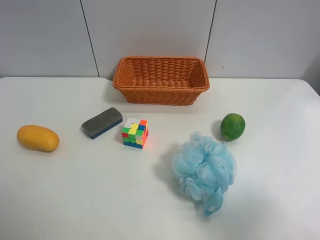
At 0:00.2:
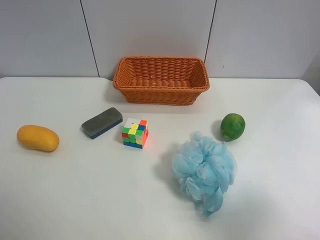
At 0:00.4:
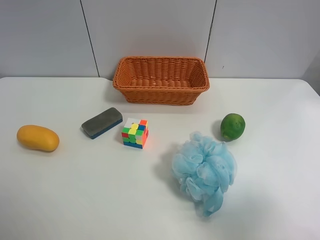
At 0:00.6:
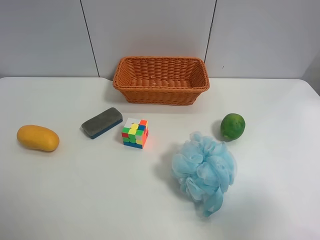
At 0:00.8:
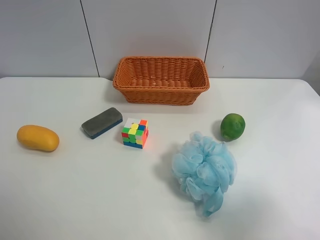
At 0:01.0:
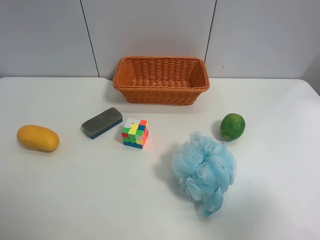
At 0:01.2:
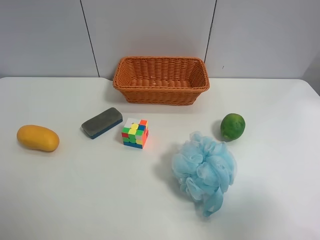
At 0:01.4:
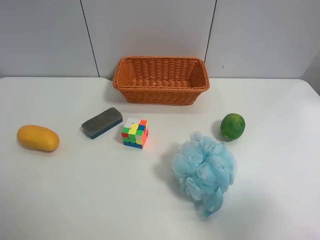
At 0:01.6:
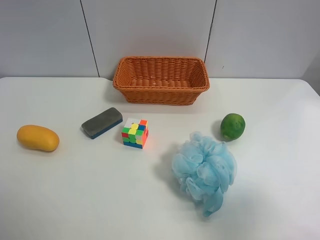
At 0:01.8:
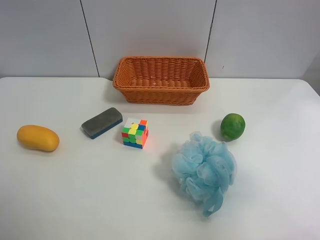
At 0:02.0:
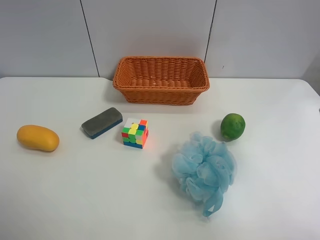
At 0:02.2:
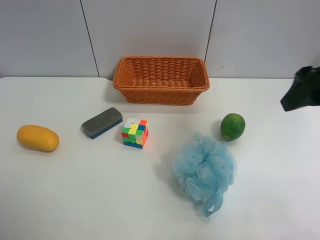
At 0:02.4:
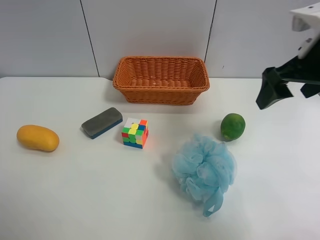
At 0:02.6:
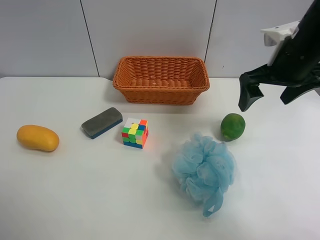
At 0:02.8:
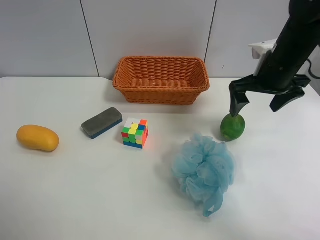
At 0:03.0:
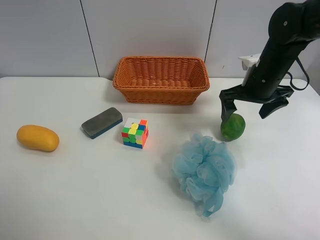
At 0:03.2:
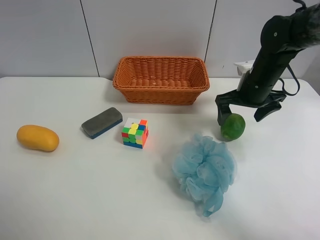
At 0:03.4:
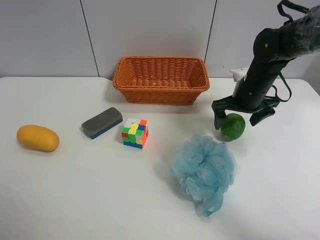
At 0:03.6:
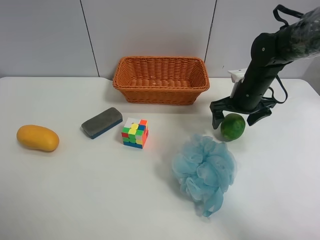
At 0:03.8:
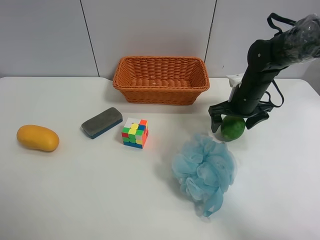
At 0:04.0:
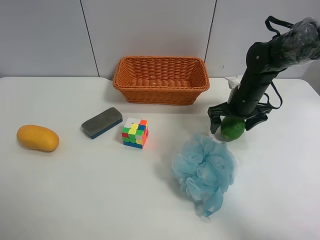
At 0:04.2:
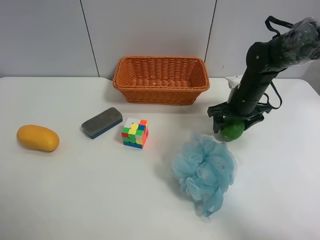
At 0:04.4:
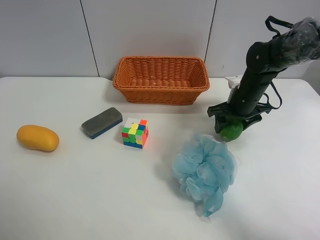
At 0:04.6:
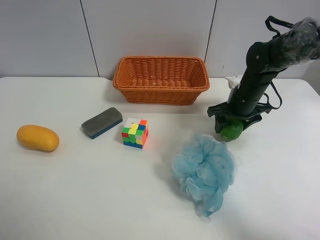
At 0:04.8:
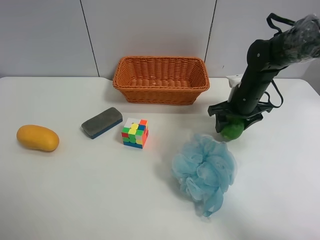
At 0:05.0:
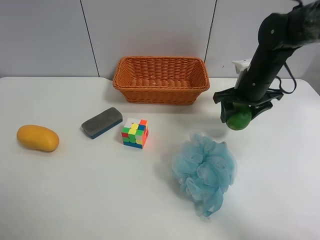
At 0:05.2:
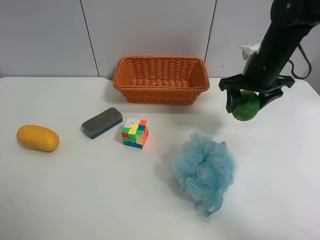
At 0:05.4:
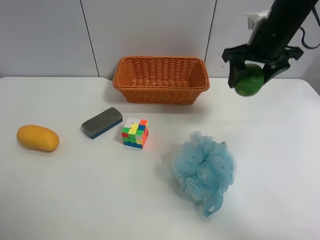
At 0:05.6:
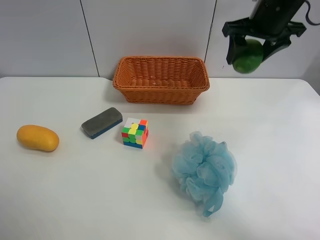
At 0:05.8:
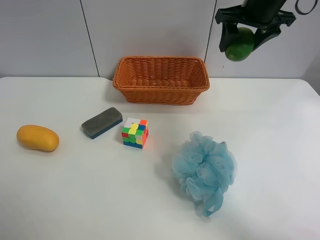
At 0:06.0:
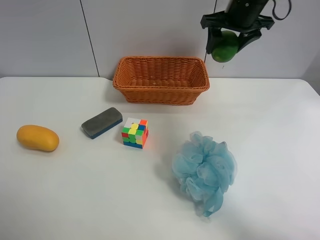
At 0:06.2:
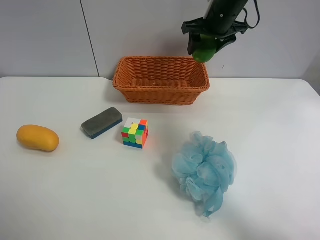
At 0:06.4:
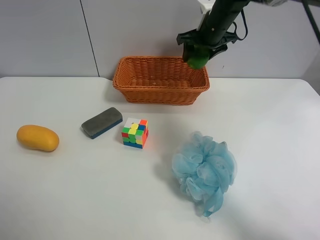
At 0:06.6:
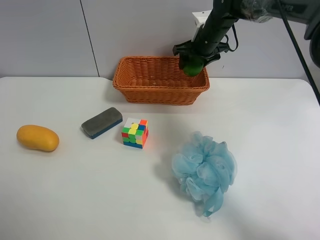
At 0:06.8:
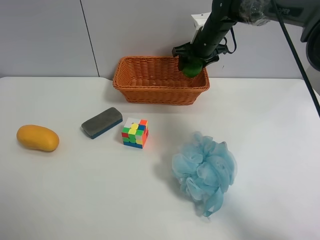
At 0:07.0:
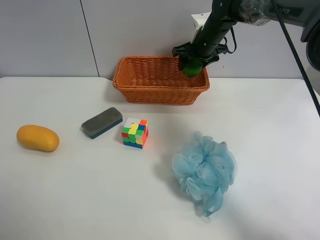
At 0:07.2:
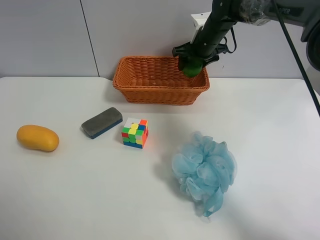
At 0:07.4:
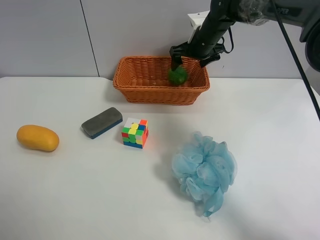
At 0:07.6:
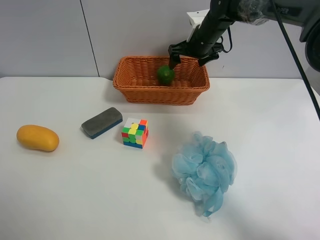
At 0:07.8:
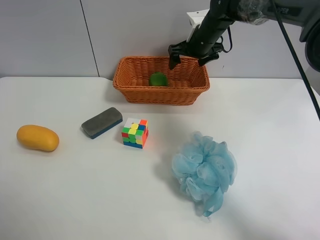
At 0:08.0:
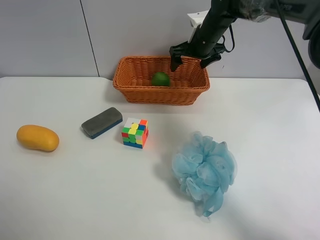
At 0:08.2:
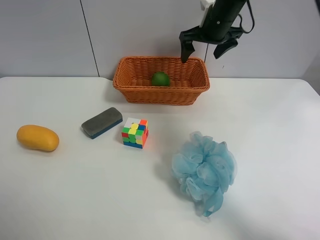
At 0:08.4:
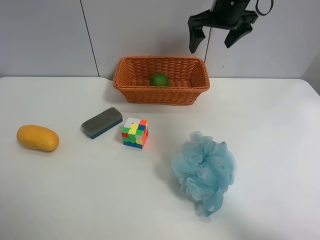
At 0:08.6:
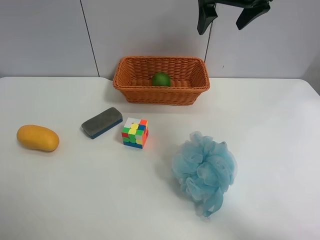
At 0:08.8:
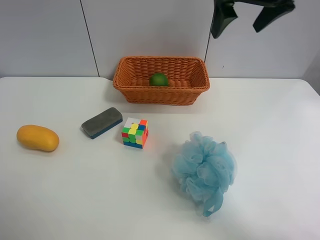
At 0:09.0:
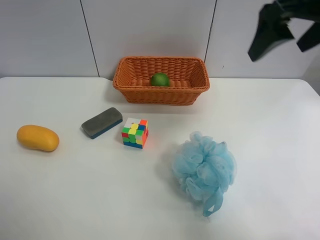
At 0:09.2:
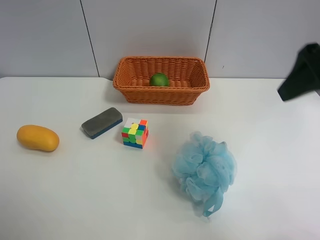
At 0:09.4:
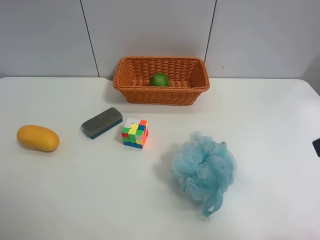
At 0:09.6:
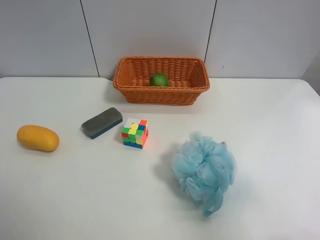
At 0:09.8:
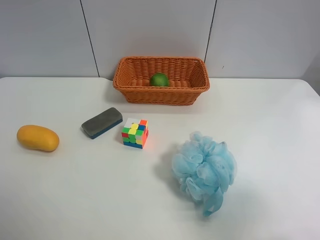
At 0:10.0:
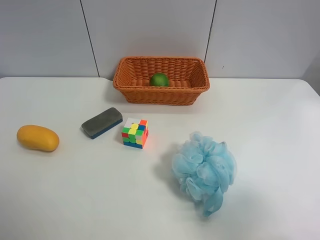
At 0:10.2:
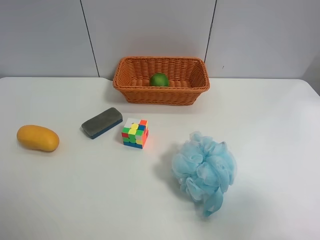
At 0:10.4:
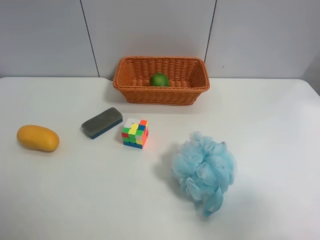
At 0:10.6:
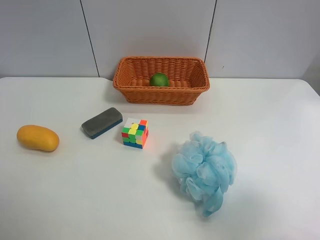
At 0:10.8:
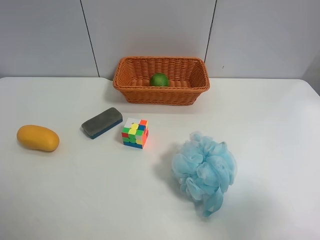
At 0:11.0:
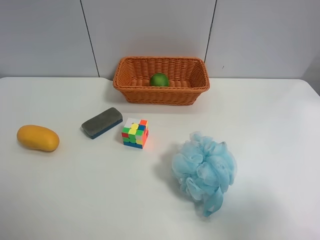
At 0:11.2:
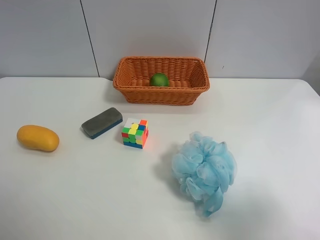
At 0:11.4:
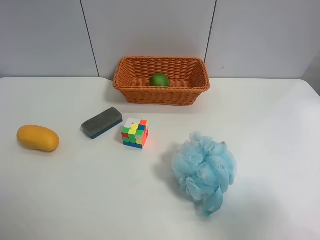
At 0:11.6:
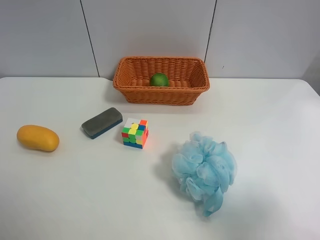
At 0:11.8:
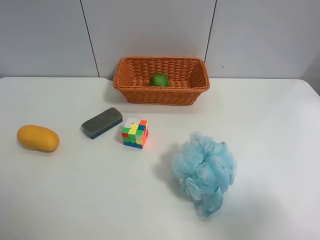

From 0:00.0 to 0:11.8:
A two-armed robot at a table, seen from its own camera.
Task of the whole recording: Randomly grab green lemon or mangoes from the table and put them in a basket.
Step, from 0:00.0 to 0:04.4: Grasp the Lemon with the right gripper.
Step, from 0:04.6 to 0:08.2: Place the Lemon into the basket with the right gripper.
From 0:00.0 to 0:01.4: Both grippers stay put.
From 0:01.4 to 0:03.0: The right gripper shifts approximately 35 cm forward.
From 0:03.0 to 0:04.4: The right gripper goes some 5 cm downward, and closes its fingers.
From 0:04.4 to 0:06.0: The right gripper is displaced upward by about 20 cm.
From 0:06.0 to 0:07.4: The right gripper shifts roughly 10 cm downward and forward, and opens up.
From 0:07.4 to 0:08.8: The right gripper shifts roughly 25 cm upward and backward.
From 0:08.8 to 0:10.4: The right gripper is displaced backward by some 35 cm.
